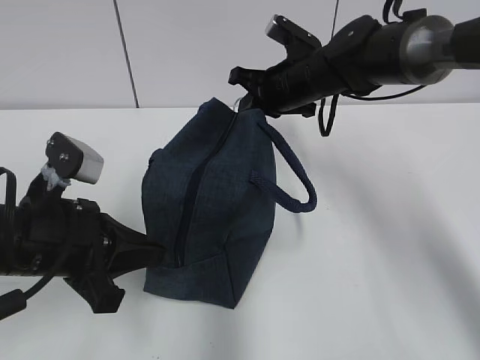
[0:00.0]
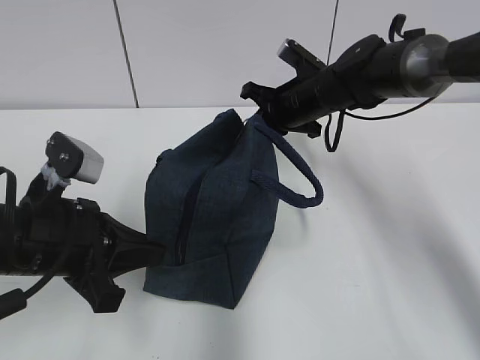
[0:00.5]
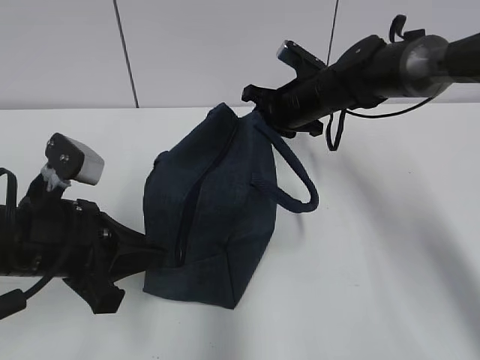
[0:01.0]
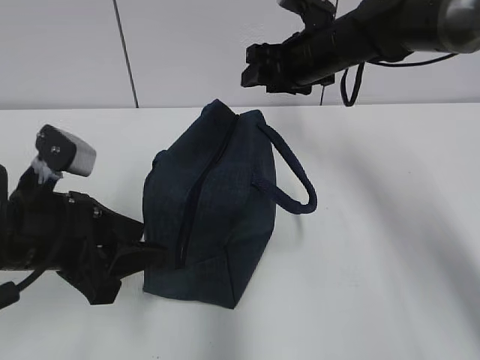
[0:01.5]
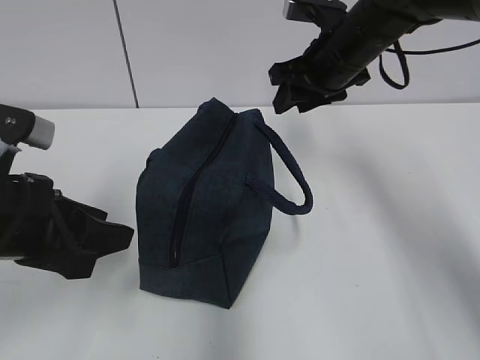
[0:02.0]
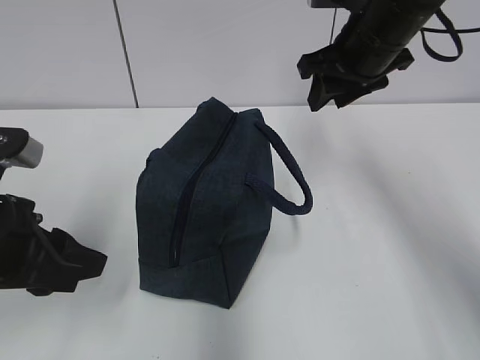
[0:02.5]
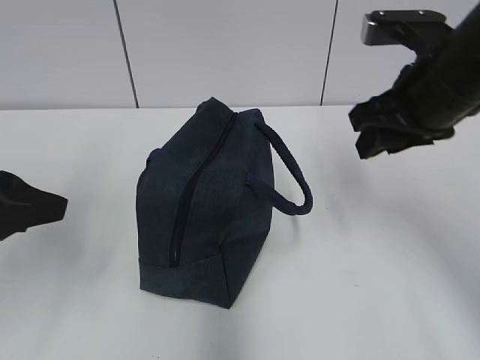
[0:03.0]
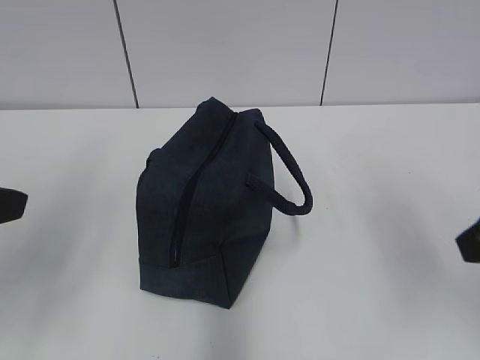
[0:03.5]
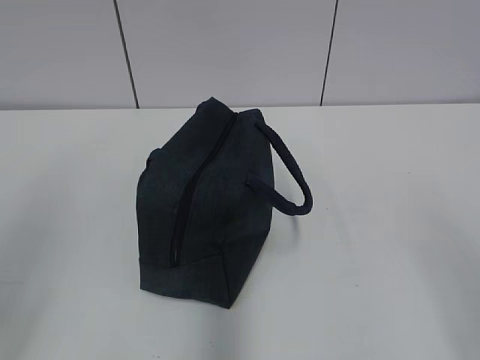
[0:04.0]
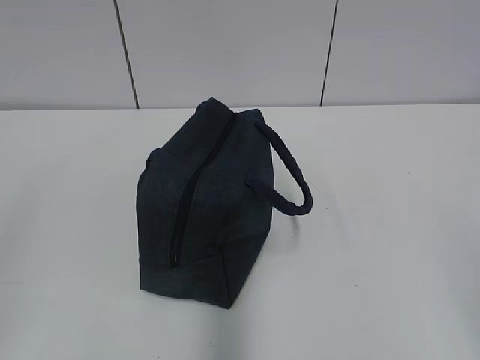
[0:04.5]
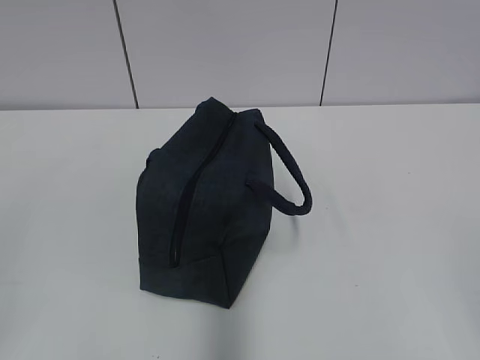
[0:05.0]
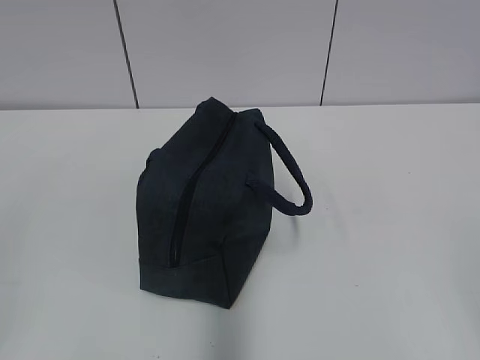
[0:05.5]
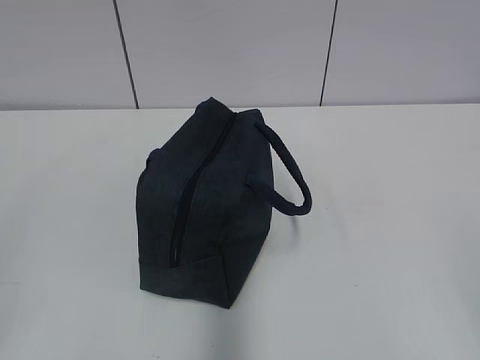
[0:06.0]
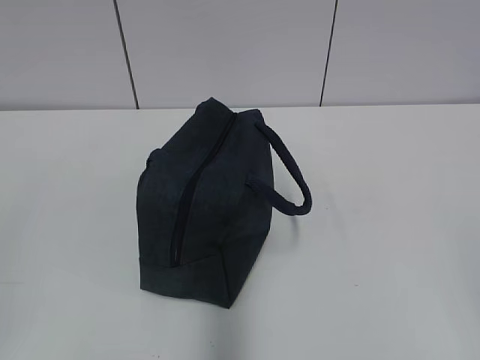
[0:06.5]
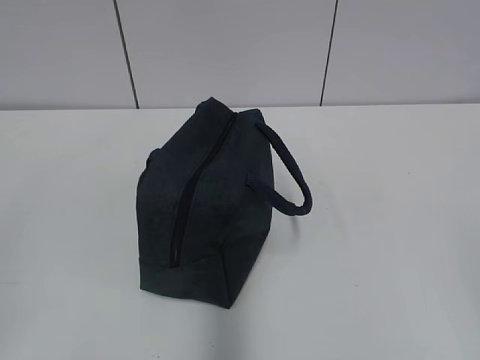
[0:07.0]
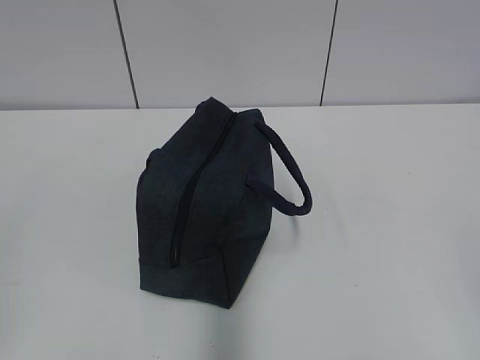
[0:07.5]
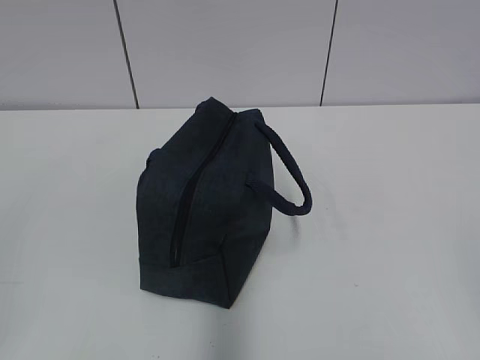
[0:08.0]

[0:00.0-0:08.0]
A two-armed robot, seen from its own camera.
0:00.0 to 0:02.0: The left gripper opens up. The right gripper travels upward by approximately 5 cm, and opens its fingers.
0:02.0 to 0:04.0: The left gripper heads backward, upward and to the left, covering roughly 15 cm; the right gripper heads backward, covering some 40 cm.
0:04.0 to 0:06.0: The left gripper is displaced backward by some 10 cm.
